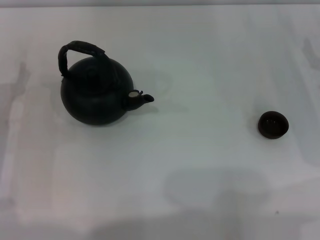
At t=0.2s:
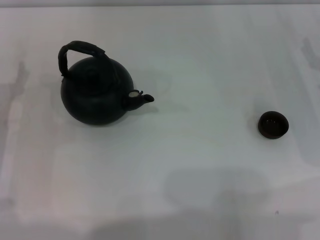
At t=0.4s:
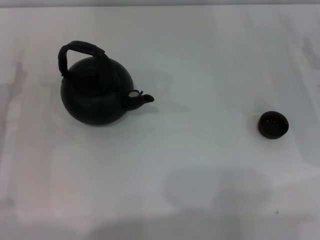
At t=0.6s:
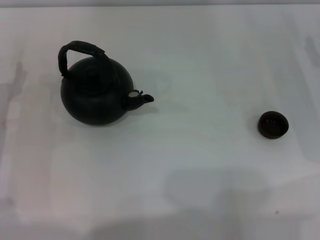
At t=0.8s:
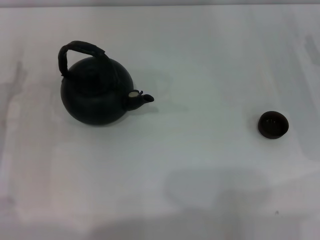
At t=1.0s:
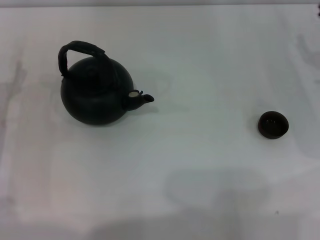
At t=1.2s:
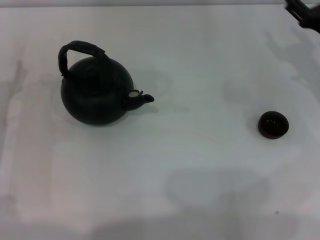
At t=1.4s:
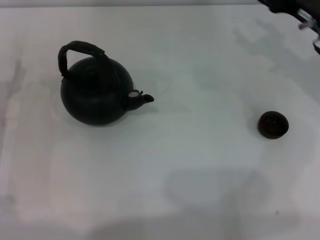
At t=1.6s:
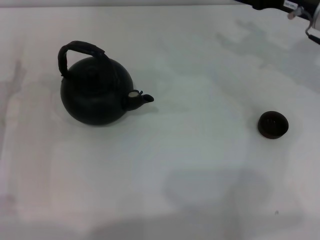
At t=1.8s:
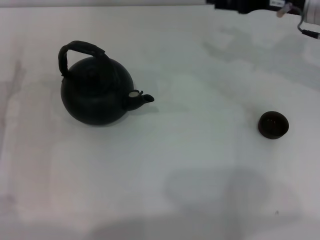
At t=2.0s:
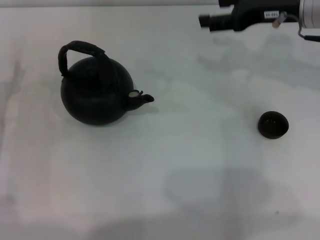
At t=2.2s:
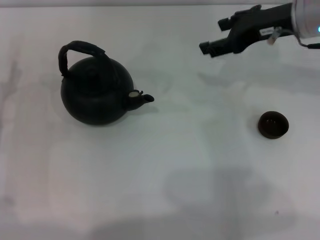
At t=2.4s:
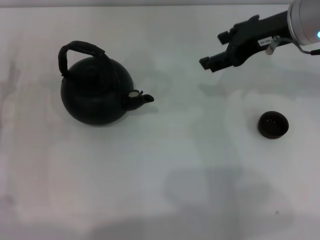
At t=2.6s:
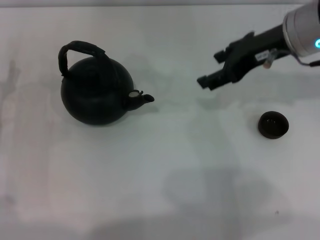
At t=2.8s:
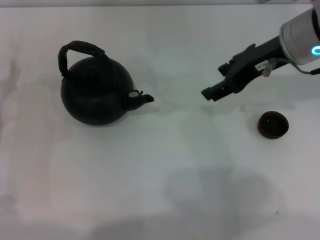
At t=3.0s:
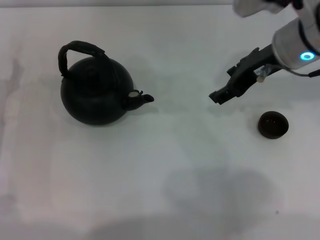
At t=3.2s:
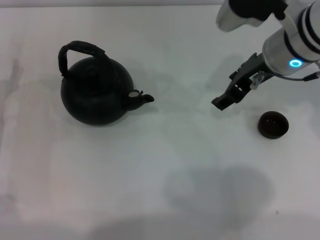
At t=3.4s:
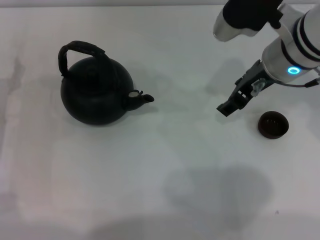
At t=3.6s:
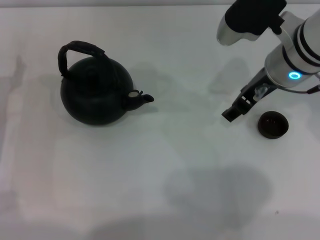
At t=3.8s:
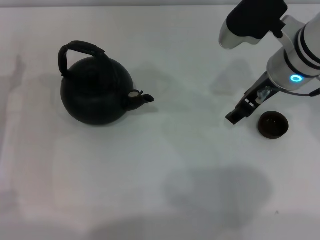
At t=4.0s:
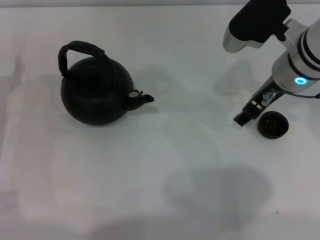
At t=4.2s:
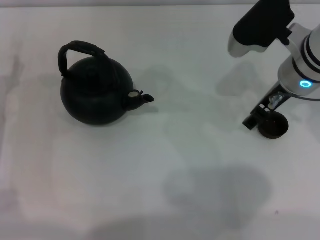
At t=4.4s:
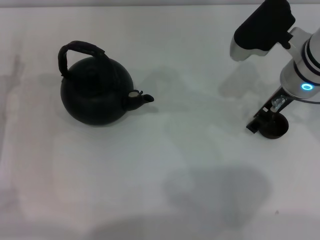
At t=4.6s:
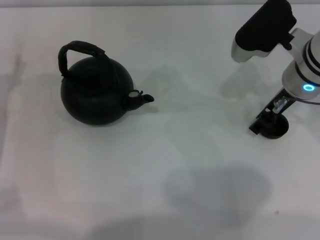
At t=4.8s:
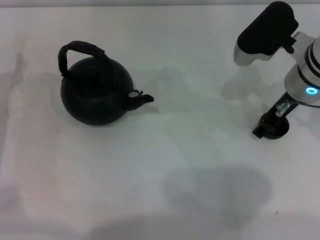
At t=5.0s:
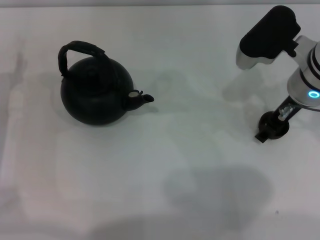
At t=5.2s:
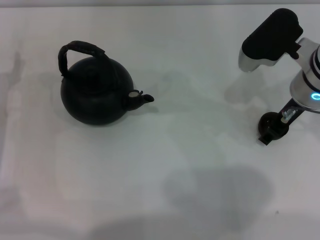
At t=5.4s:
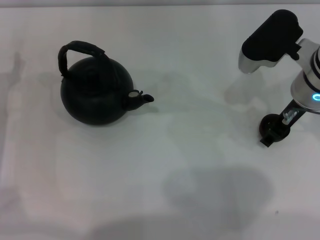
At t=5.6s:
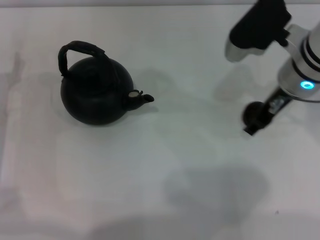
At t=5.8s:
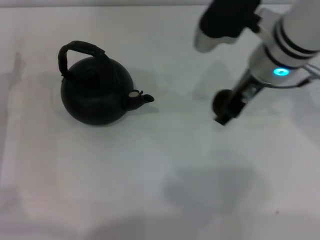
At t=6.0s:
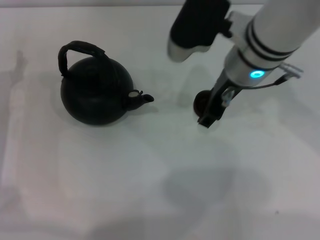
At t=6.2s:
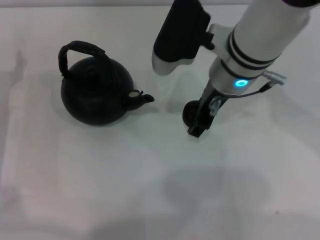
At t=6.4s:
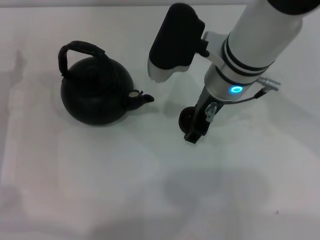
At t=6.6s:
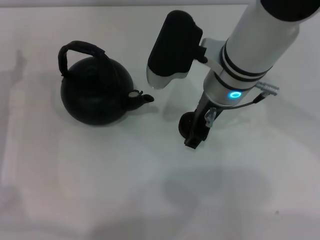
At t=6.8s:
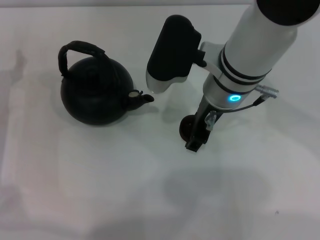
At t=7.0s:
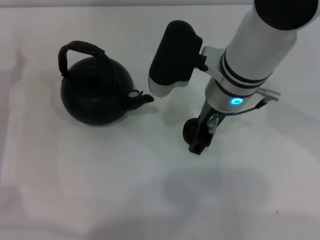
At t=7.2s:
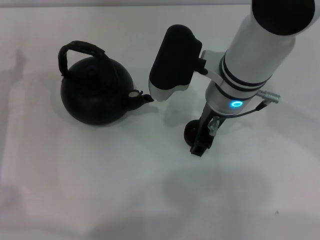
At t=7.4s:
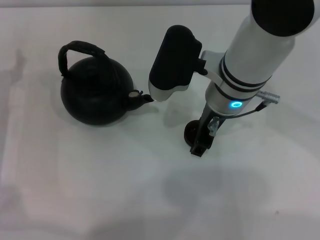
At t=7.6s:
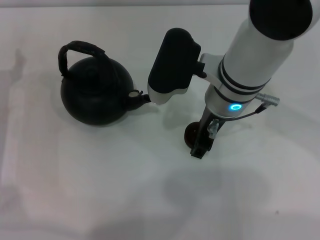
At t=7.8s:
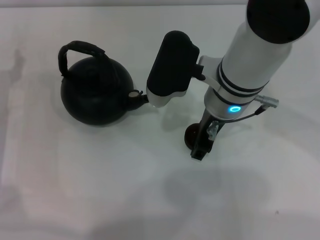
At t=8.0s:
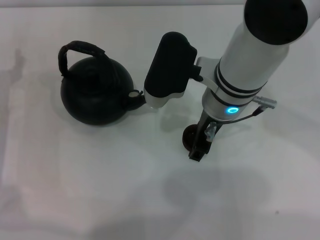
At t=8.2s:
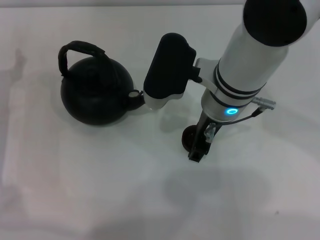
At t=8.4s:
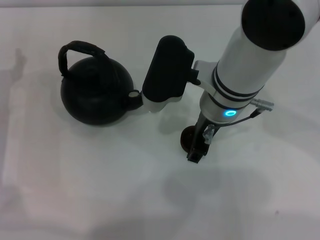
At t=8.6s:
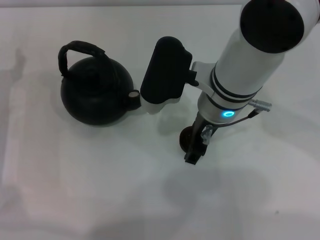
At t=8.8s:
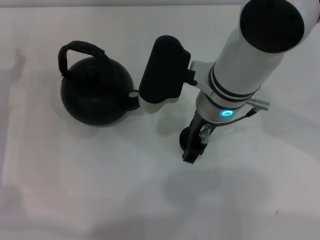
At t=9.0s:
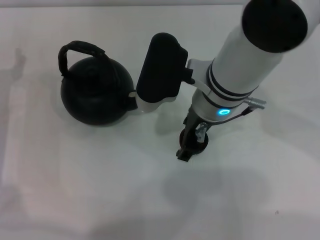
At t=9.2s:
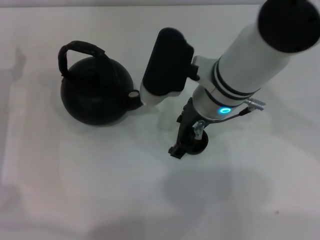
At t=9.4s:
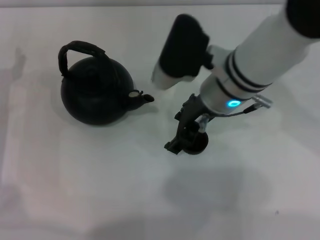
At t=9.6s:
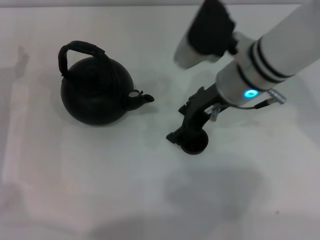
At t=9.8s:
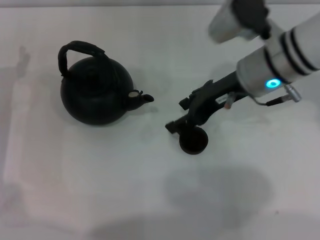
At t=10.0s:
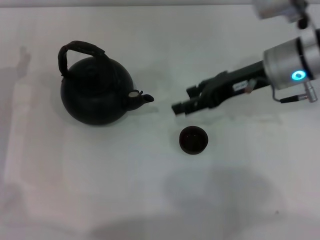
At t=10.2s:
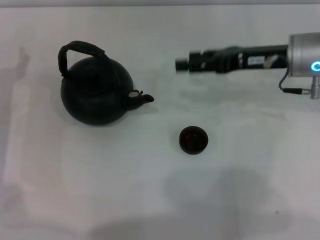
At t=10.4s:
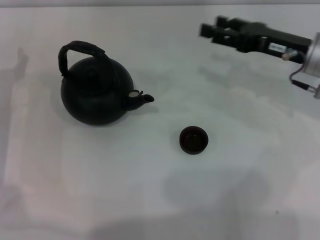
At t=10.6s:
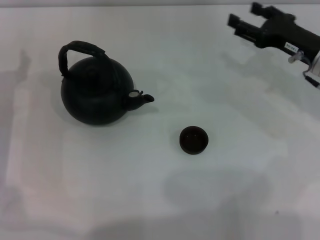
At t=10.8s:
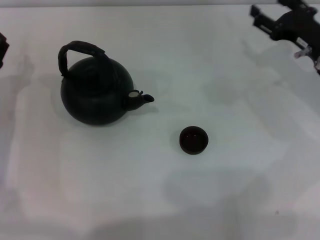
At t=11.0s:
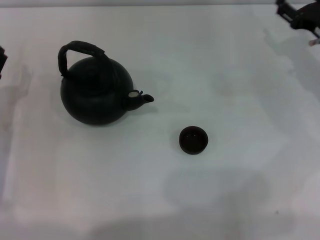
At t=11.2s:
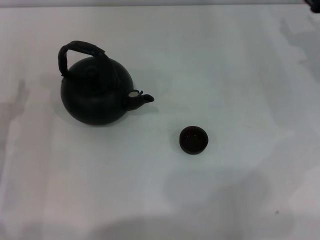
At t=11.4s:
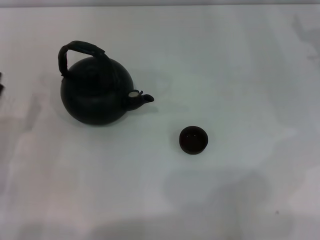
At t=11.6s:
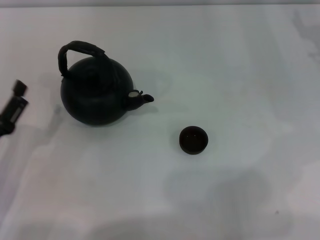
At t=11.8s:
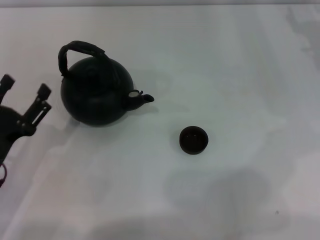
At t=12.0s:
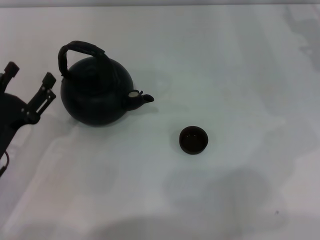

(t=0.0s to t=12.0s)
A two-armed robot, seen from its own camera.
Task of the whole recording: Grasp the handle of the teapot with one hand and pour tea into the teacup.
Step, t=0.0s - t=5.4s: Pick up the teacup with the right gripper.
Step, t=5.8s - t=10.0s: Place the teacup in the center of view with the right gripper.
t=0.0s - t=1.6s: The right gripper heads upward, forward and to the left, covering roughly 15 cm.
t=1.6s - t=3.0s: The right gripper moves to the left, roughly 10 cm.
t=4.4s - t=6.0s: The right gripper is displaced to the left by roughly 10 cm.
t=6.0s - t=9.0s: The grippers stay close to where they were, moving slightly.
t=9.0s - t=10.4s: The right gripper heads to the right, covering approximately 20 cm.
t=10.4s - t=12.0s: The right gripper heads to the right, covering some 5 cm, while the left gripper heads backward, covering roughly 10 cm.

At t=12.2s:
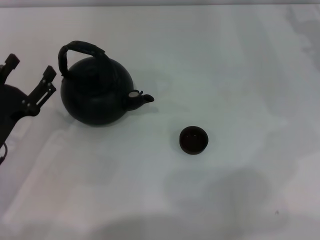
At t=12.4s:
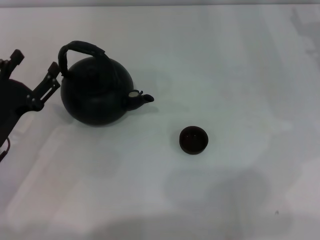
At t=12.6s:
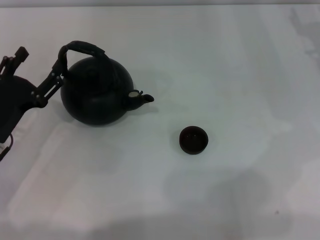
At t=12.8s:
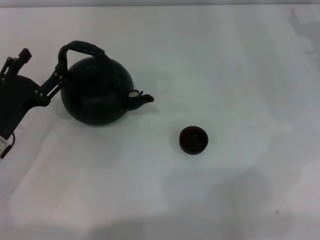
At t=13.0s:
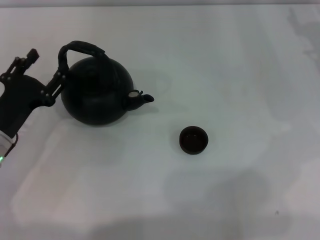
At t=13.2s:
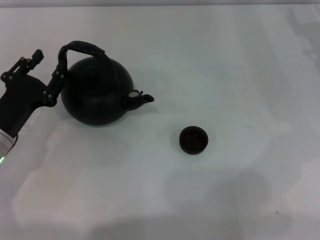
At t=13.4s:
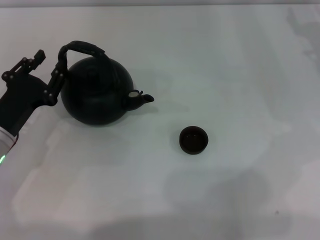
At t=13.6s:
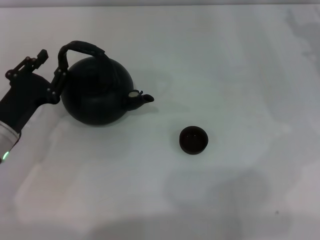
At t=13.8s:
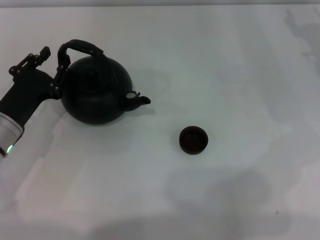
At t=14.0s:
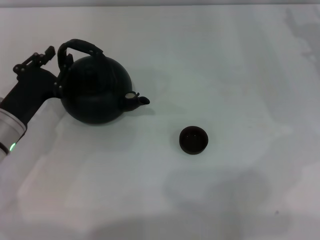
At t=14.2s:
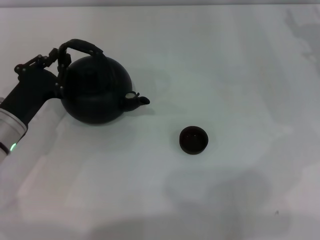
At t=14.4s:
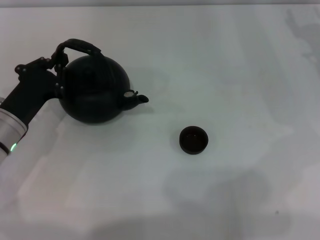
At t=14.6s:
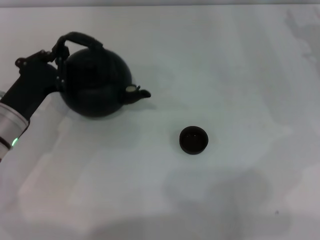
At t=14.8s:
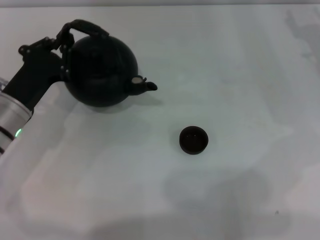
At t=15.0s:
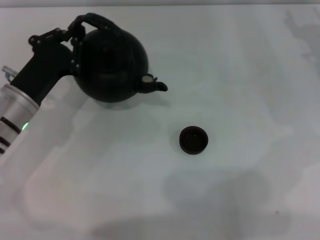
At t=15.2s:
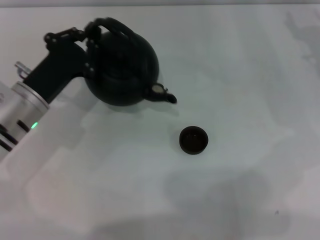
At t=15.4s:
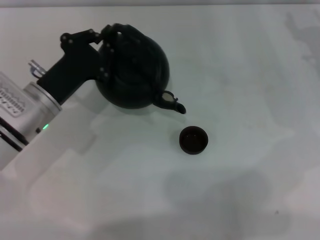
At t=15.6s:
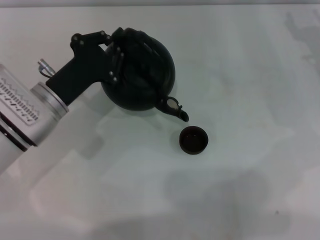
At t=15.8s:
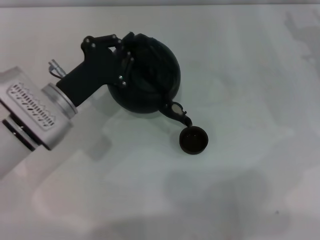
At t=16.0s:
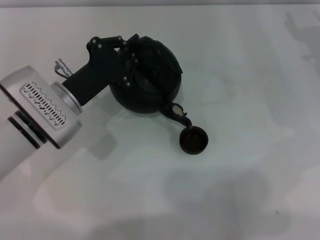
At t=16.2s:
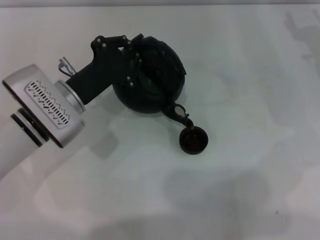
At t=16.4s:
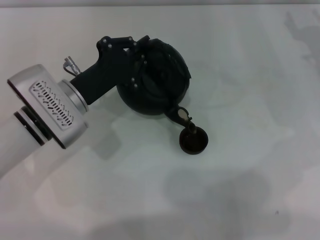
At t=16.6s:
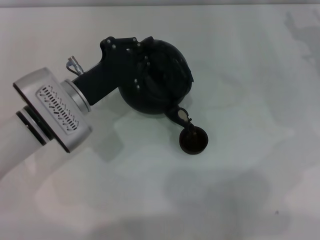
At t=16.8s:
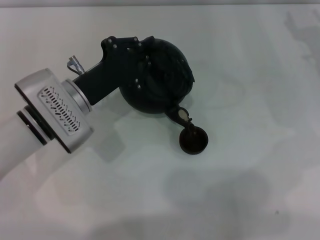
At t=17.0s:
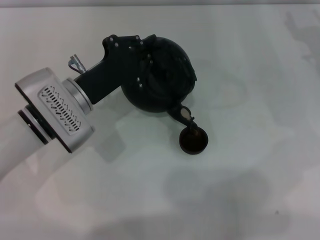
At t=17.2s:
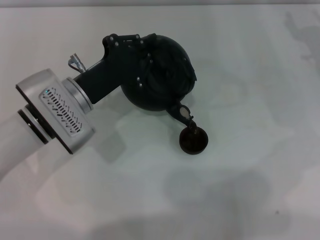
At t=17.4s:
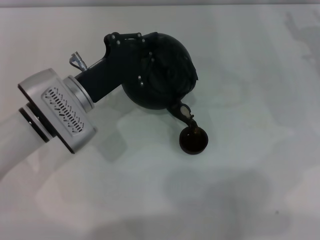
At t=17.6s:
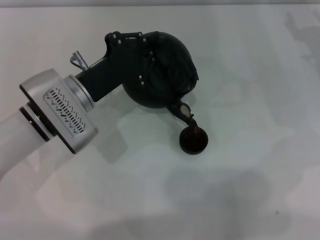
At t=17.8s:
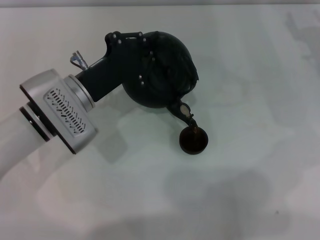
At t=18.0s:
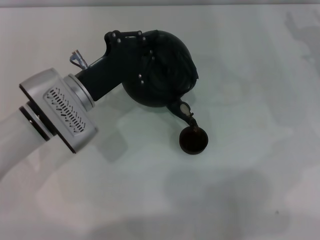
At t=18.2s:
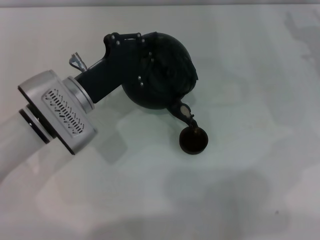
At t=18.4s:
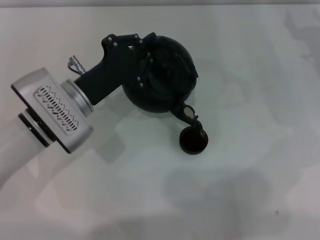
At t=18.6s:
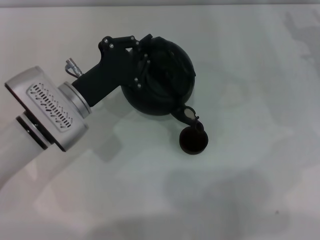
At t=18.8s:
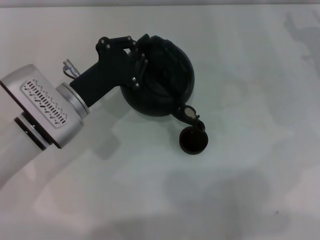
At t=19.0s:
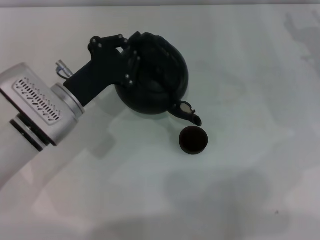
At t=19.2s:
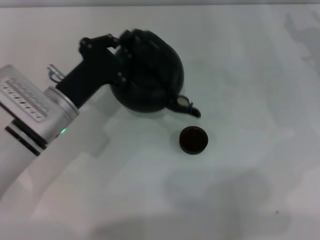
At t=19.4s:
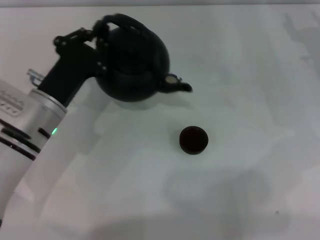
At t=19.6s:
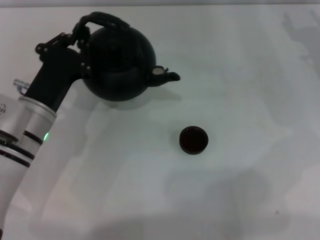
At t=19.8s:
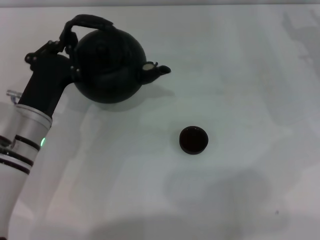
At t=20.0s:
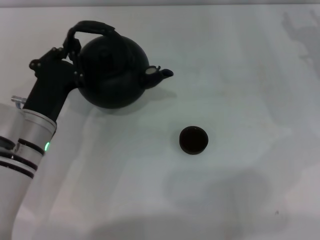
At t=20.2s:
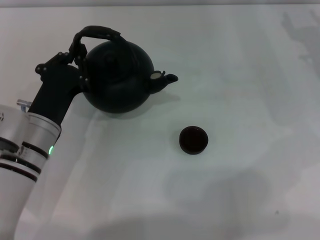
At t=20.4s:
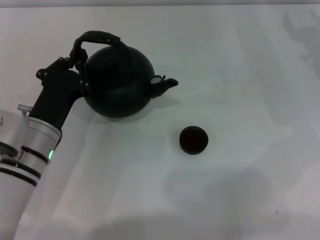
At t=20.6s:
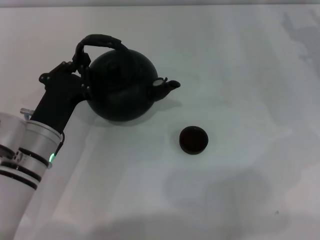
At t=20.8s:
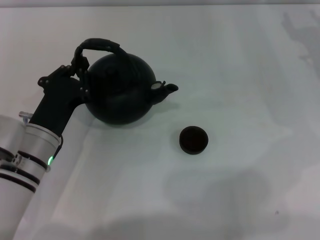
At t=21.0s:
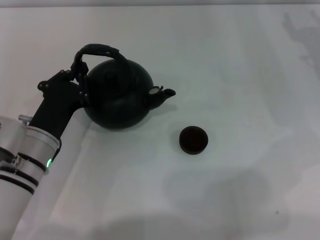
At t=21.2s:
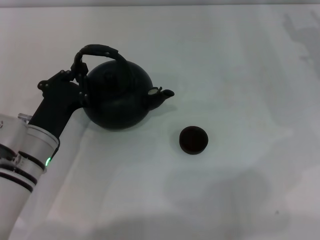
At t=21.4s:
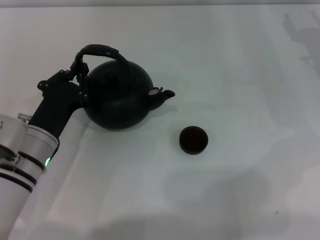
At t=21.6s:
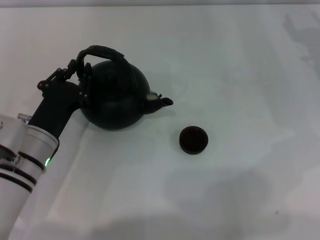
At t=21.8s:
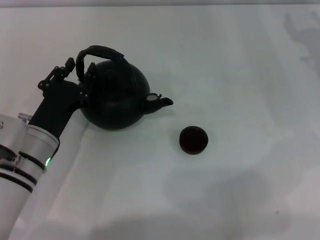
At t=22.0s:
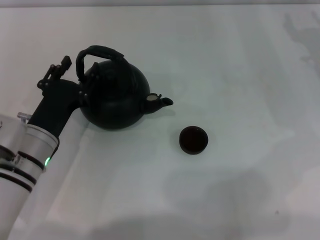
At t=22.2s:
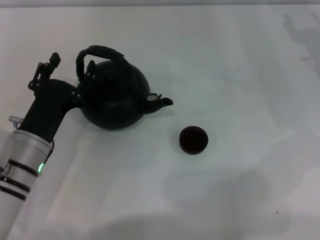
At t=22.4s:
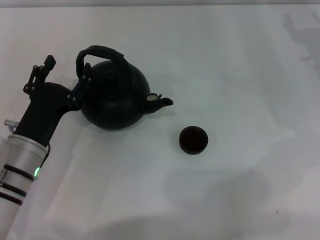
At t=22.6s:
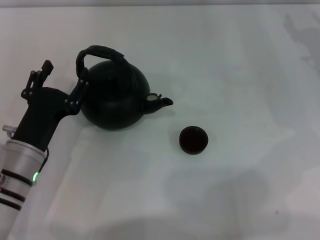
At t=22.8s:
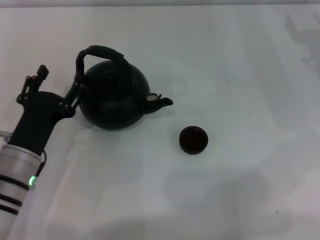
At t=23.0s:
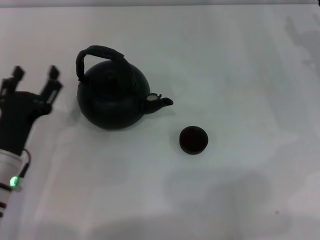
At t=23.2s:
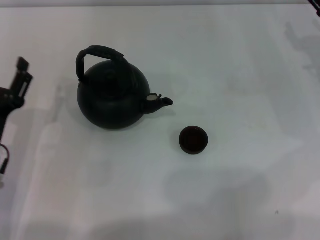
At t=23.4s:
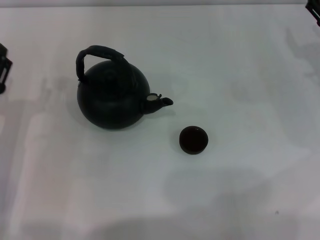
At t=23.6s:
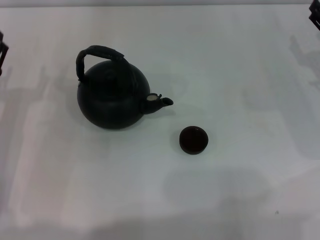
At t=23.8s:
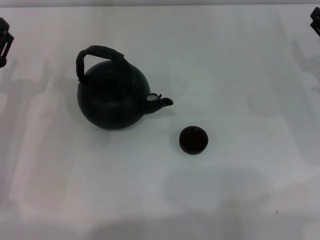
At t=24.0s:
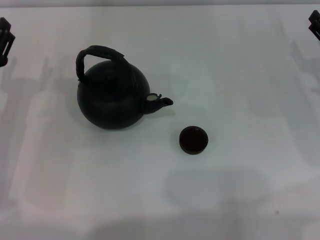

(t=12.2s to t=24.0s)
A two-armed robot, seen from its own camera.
Task of the whole recording: Grasp the handle of the teapot with one hand and pour tea into the teacup.
Step, t=12.2s - t=15.2s: Pick up the teapot with the left gripper.
Step, t=15.4s - t=19.2s: Pour tea into the teacup with the left gripper.
Step, t=19.4s - t=22.0s: Put down the teapot with the left gripper.
t=12.2s - t=13.6s: The left gripper closes.
t=13.6s - t=15.2s: The left gripper ends up some 5 cm from where it was, and closes up.
t=15.2s - t=16.6s: The left gripper is displaced to the right by some 5 cm.
t=16.6s - t=18.2s: The grippers stay close to where they were, moving slightly.
t=18.2s - t=19.6s: The left gripper moves approximately 5 cm.
t=19.6s - t=21.0s: The grippers stay close to where they were, moving slightly.
t=21.0s - t=22.6s: The left gripper opens up.
t=22.6s - t=24.0s: The left gripper shifts approximately 10 cm to the left and forward.
